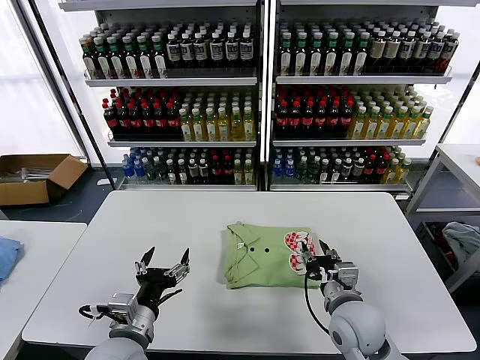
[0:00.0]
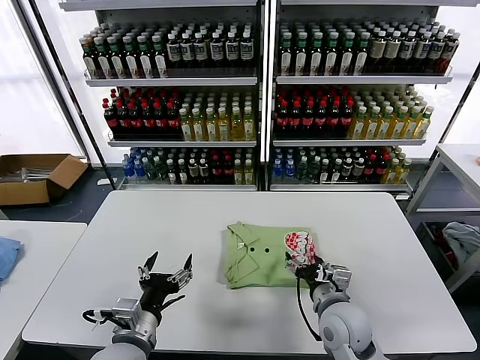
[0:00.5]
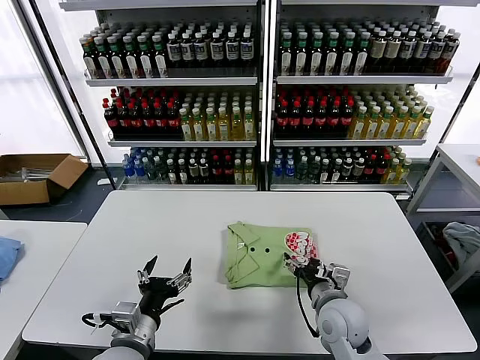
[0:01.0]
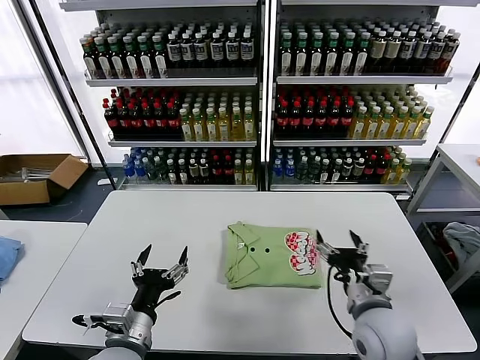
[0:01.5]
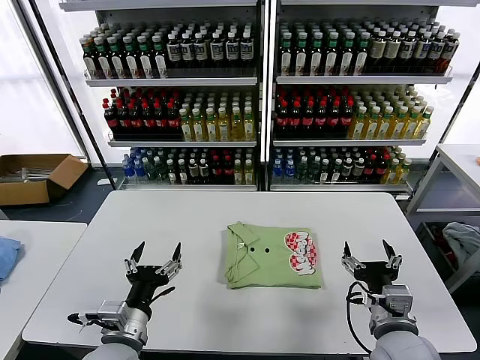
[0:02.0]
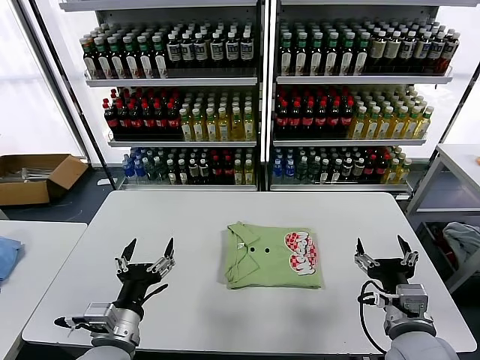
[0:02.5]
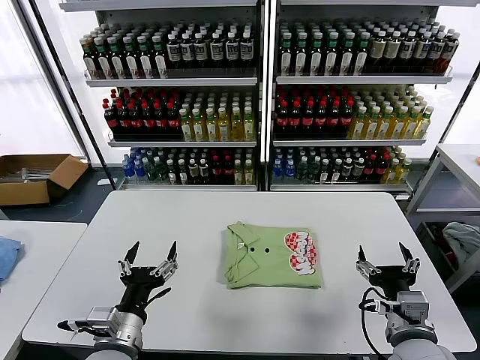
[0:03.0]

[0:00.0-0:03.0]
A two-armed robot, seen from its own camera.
Task of the whole recording: fold and organize the clothes.
0:00.0 to 0:01.5: The right gripper opens its fingers.
0:01.5 to 0:03.0: The right gripper is displaced backward and to the right by approximately 10 cm.
